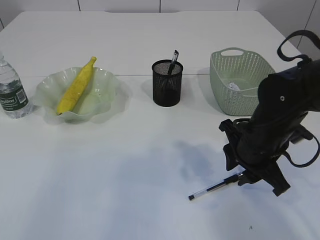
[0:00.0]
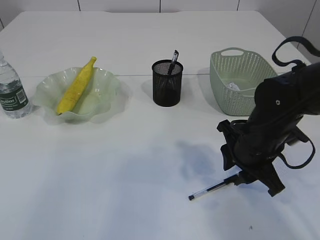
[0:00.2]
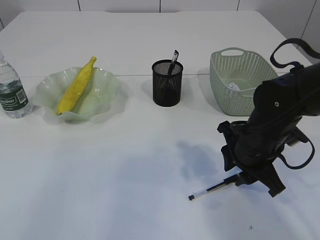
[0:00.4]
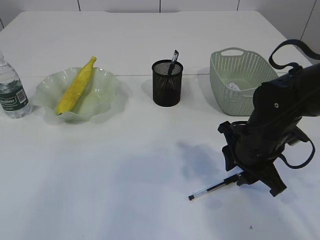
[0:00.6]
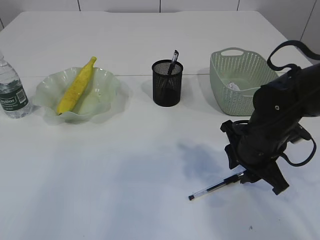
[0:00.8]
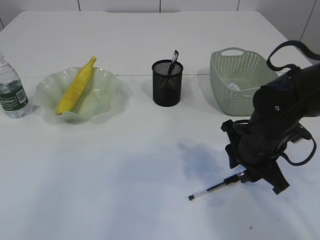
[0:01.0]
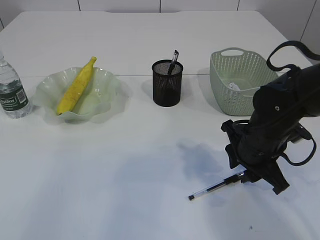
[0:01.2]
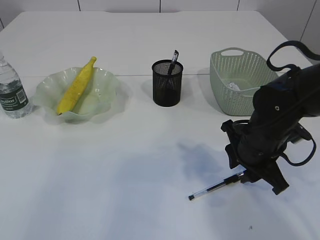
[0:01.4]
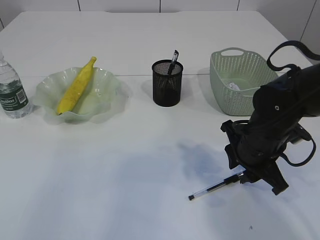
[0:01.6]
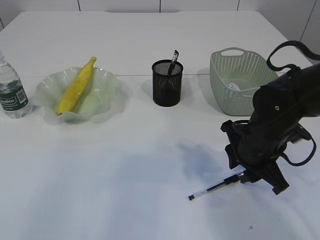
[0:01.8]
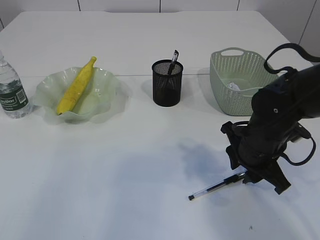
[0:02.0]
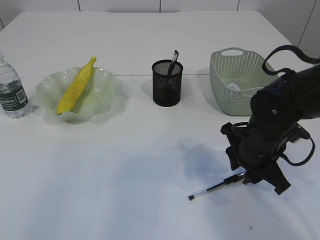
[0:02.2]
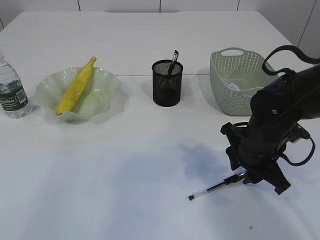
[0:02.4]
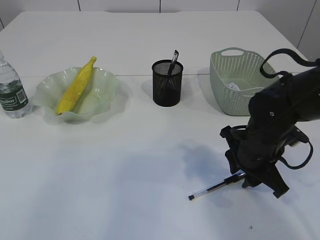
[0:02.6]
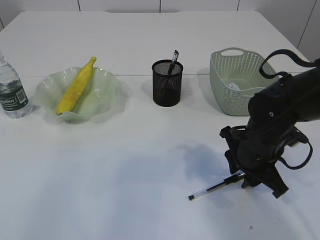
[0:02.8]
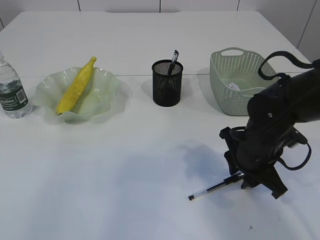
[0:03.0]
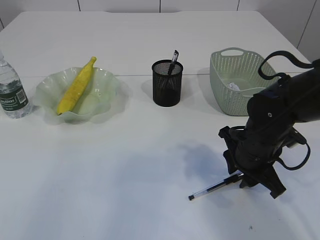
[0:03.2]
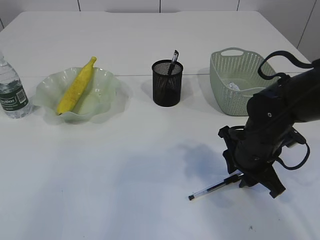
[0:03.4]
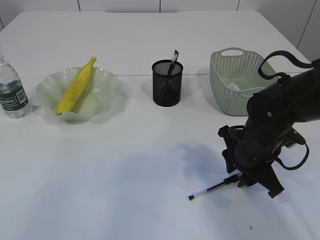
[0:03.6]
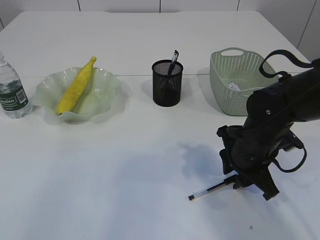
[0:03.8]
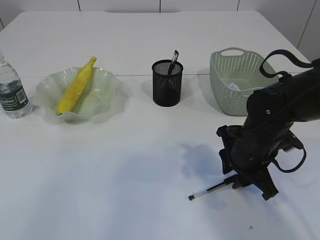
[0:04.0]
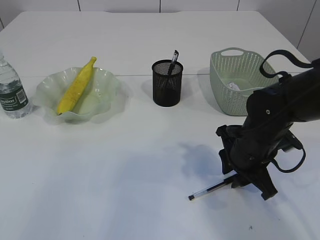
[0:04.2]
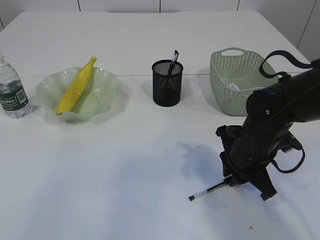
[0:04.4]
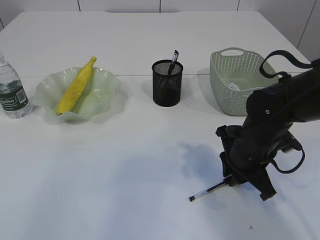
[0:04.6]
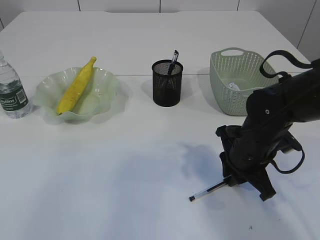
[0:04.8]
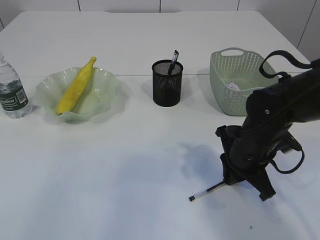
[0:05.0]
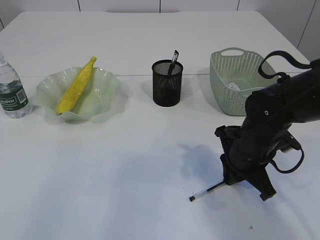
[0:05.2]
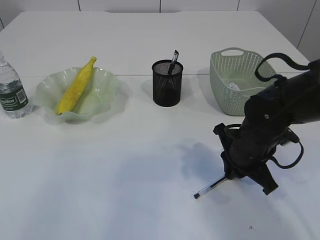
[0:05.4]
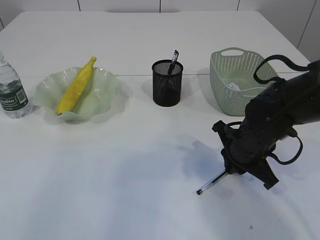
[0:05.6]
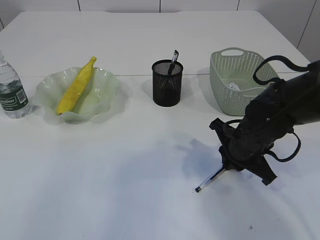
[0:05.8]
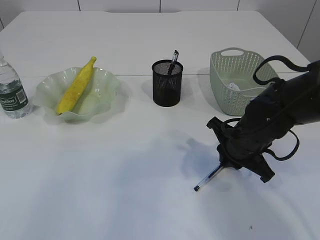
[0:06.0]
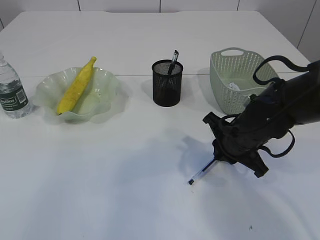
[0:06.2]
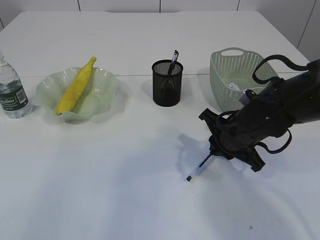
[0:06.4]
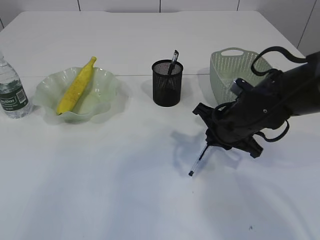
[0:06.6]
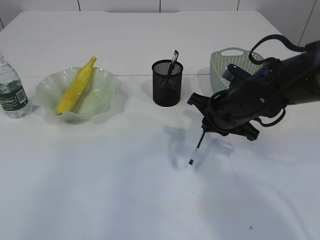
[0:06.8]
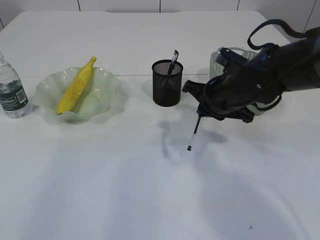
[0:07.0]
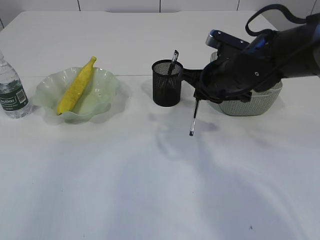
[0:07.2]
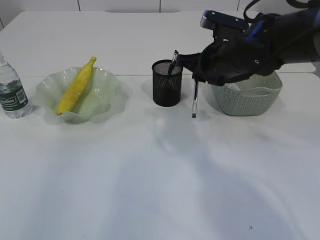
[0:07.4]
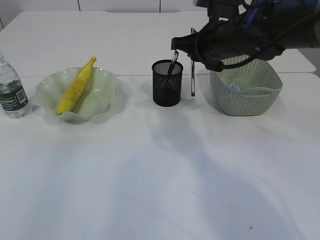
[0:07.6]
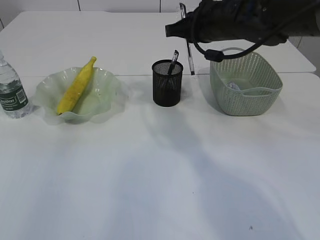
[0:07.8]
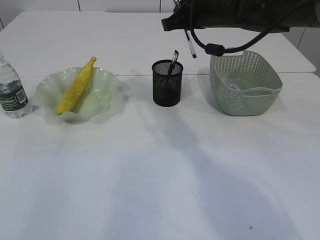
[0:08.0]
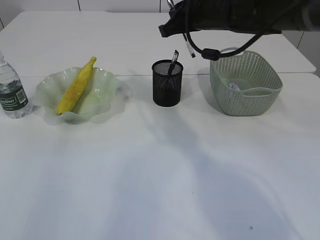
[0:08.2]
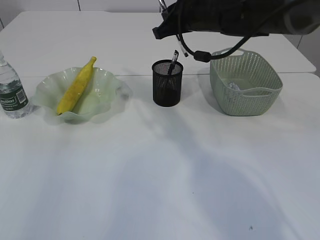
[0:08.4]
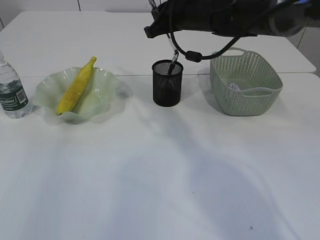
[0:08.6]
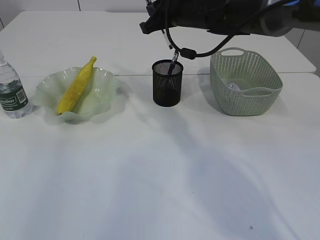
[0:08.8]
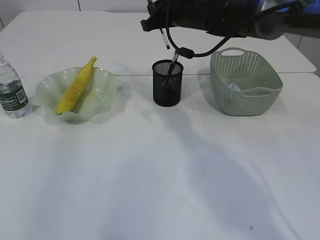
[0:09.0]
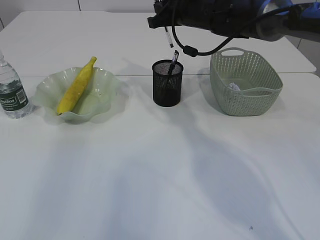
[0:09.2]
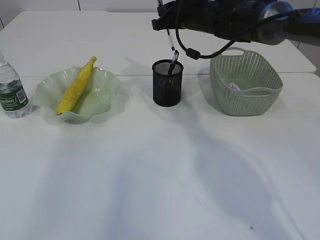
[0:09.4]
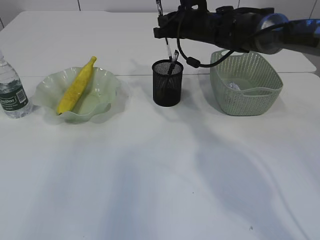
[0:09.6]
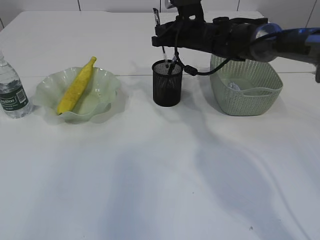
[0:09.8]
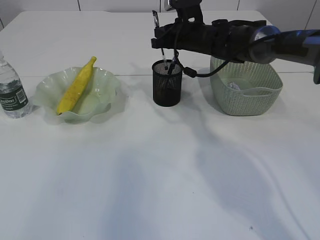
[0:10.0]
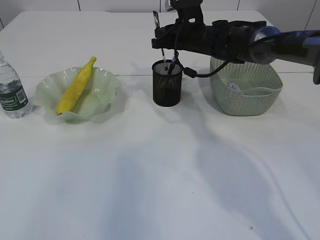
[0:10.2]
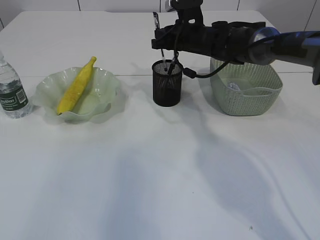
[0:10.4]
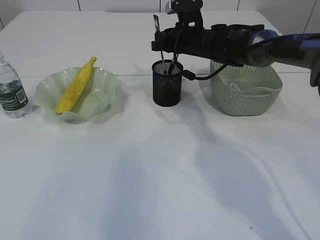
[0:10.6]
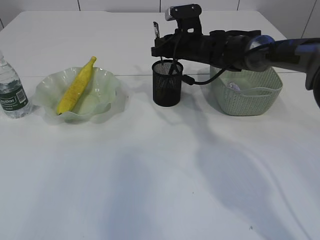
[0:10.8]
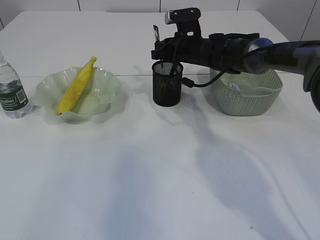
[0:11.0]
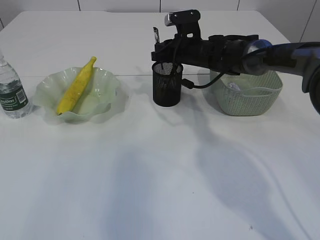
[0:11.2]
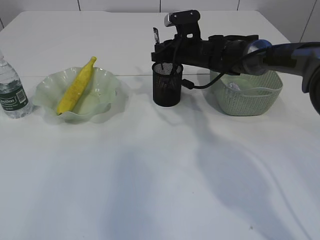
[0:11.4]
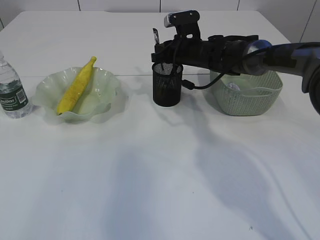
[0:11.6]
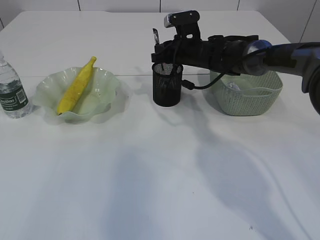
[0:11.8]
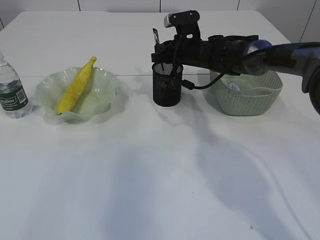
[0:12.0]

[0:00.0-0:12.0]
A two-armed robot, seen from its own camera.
Step, 0:00.0 to 0:06.8: Pick up the pen with right arm.
0:00.0 to 0:06.0: The grippers move only a little.
0:06.0 to 0:07.6: The right gripper goes about 15 cm upward and forward.
0:07.6 to 0:09.0: The right gripper is displaced forward by approximately 10 cm.
0:09.0 to 0:10.4: The right gripper moves downward, roughly 5 cm.
0:10.4 to 0:12.0: The grippers make only small movements.

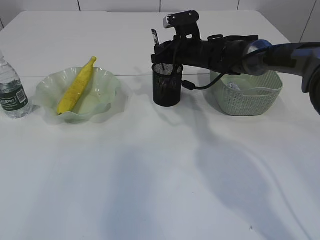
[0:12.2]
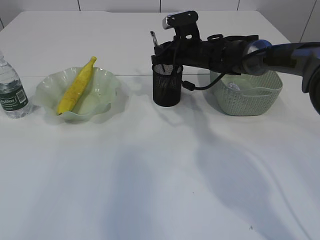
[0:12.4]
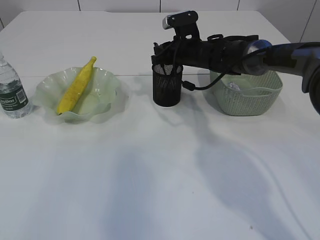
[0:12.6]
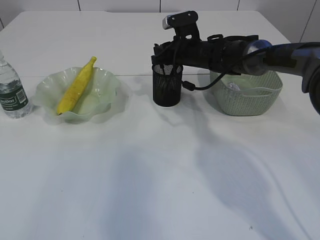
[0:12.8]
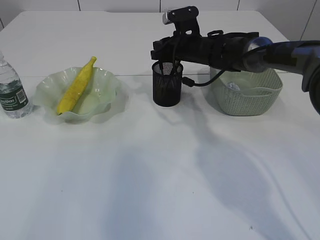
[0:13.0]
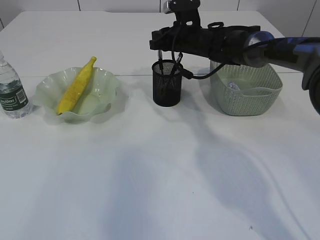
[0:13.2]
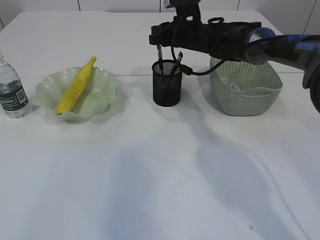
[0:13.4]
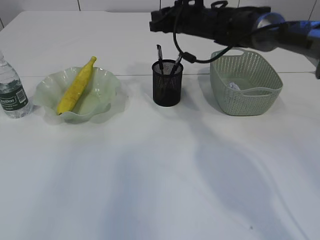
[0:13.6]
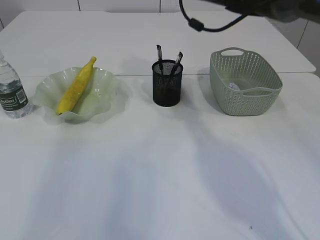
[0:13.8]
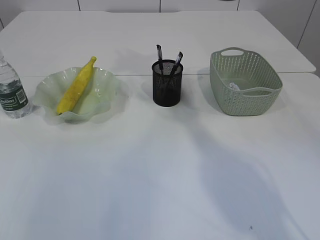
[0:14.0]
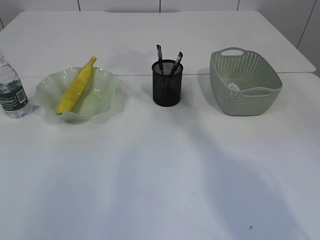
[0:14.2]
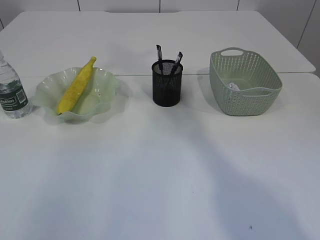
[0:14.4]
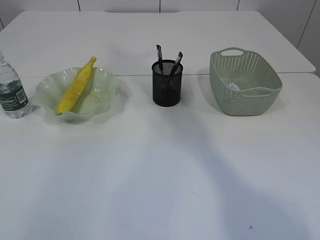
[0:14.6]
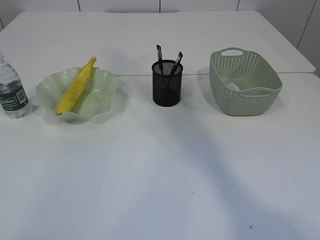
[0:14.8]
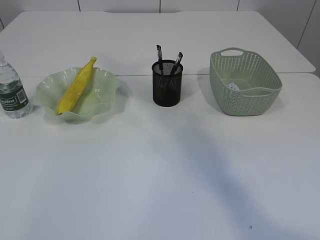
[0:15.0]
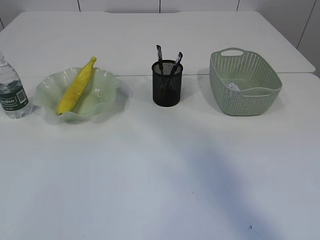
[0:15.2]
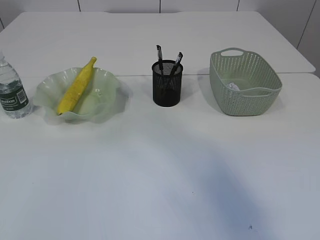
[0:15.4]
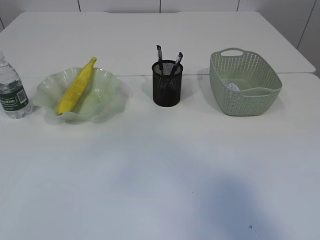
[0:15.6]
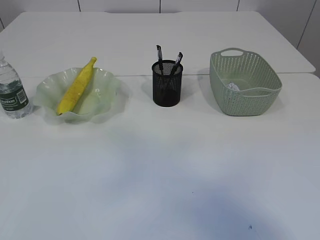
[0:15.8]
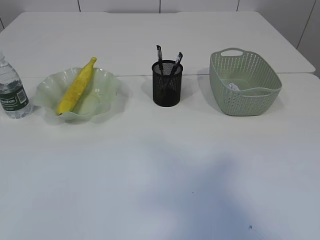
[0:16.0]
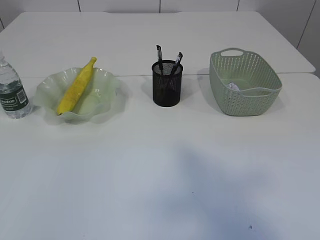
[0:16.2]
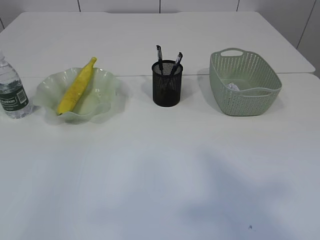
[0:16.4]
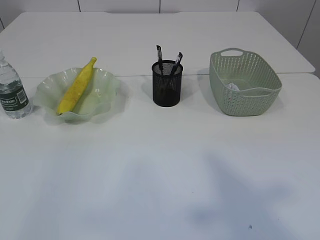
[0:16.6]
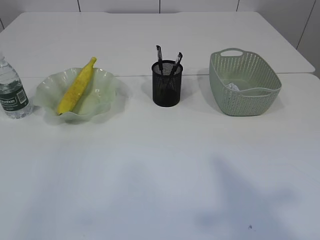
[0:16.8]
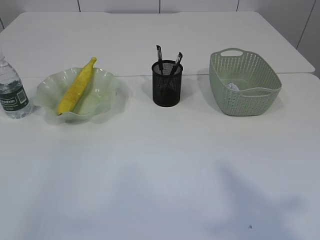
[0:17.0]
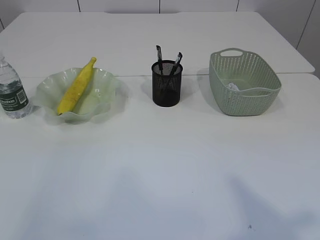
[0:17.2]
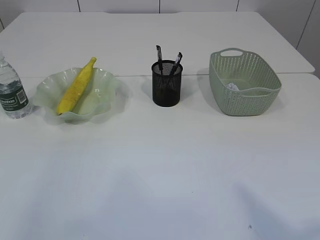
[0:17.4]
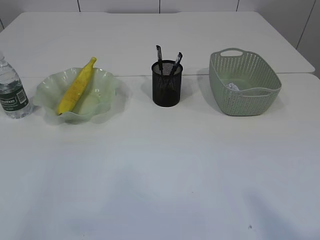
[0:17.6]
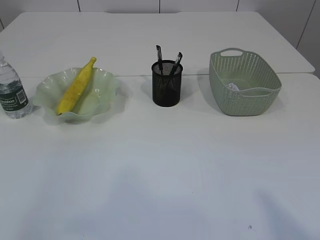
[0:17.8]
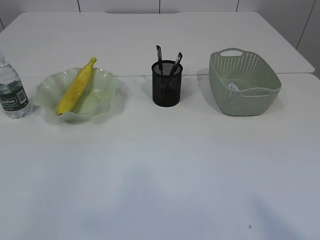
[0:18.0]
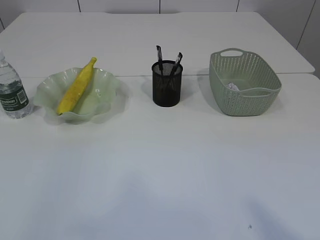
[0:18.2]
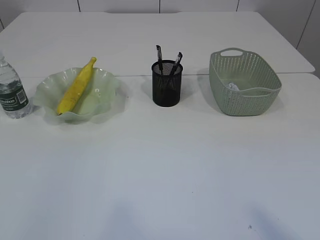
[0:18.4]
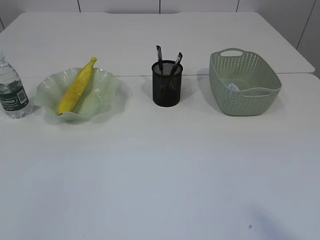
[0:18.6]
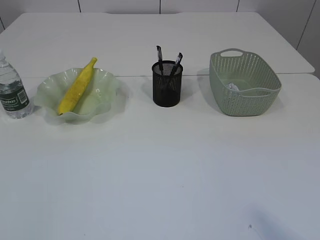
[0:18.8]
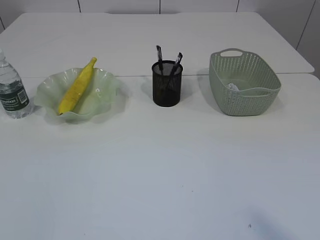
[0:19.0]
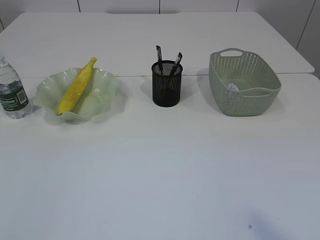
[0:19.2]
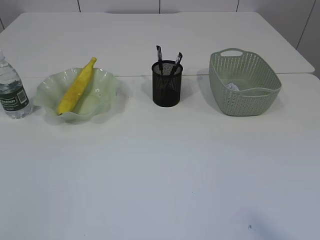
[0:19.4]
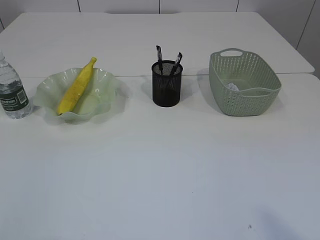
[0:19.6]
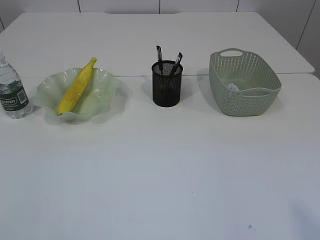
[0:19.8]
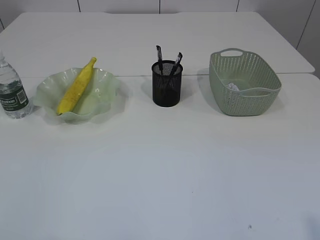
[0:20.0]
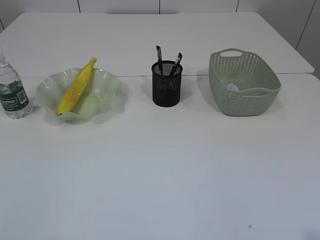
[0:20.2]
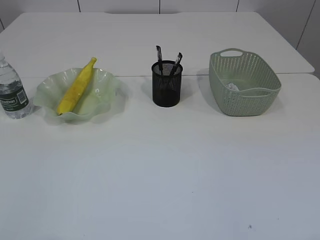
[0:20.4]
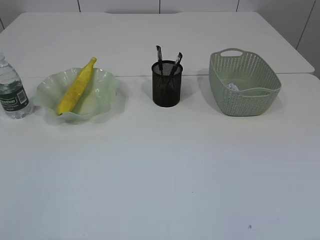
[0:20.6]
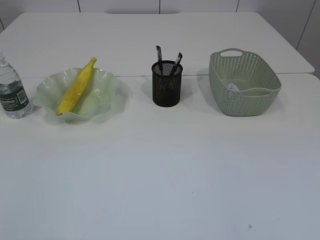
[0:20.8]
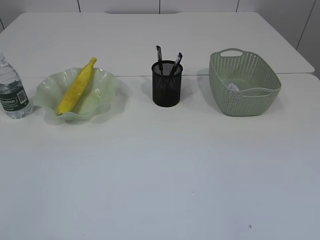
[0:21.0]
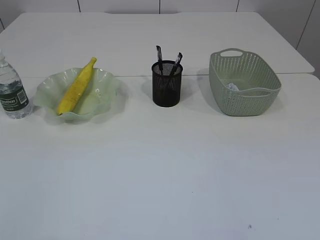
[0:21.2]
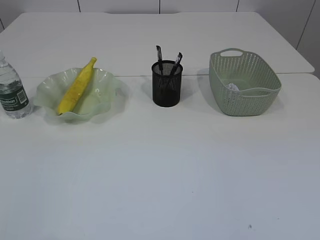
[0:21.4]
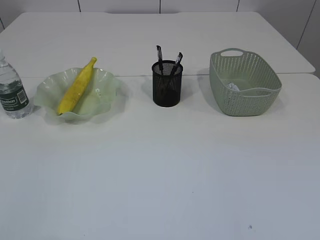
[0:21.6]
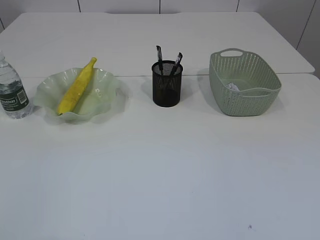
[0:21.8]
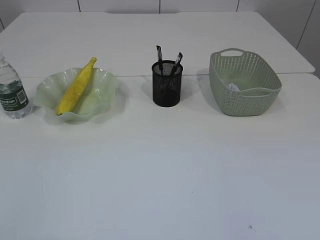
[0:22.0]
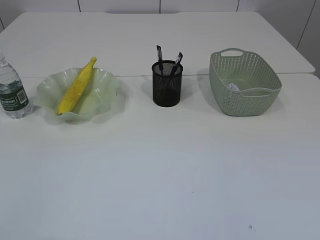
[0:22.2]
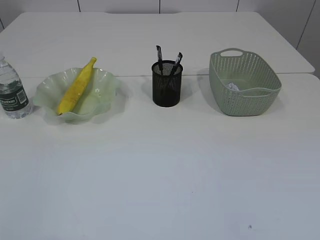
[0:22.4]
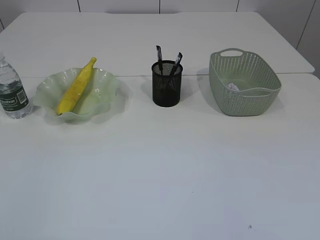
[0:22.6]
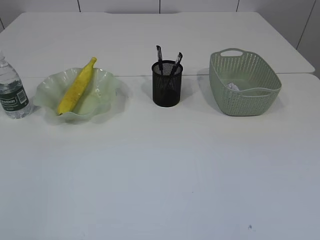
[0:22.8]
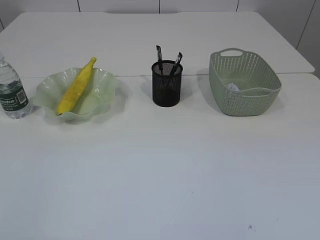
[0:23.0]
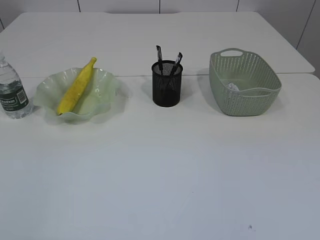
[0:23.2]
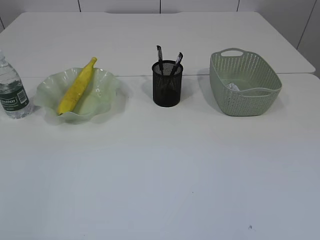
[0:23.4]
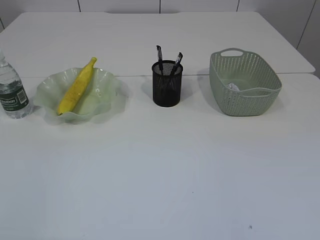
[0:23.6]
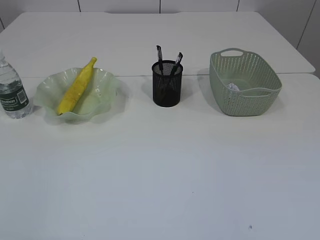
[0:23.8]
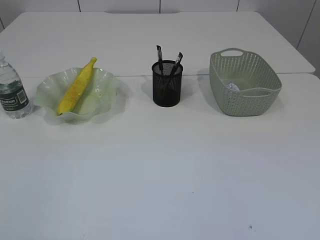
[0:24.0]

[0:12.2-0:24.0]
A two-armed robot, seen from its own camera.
0:12.2 to 0:13.6: The right gripper shifts approximately 5 cm upward.
0:13.6 to 0:15.2: The left gripper goes some 20 cm backward and upward, and closes its fingers, while the right gripper travels upward and backward by some 50 cm.
0:15.2 to 0:16.6: The left gripper travels downward by about 5 cm, while the right gripper moves backward, downward and to the right, some 25 cm.
